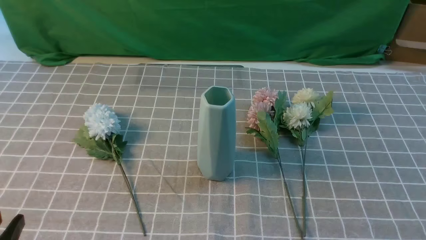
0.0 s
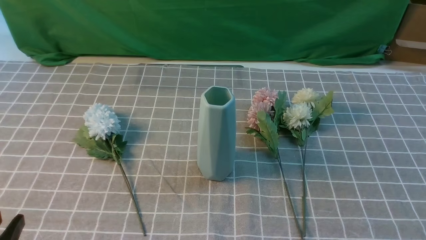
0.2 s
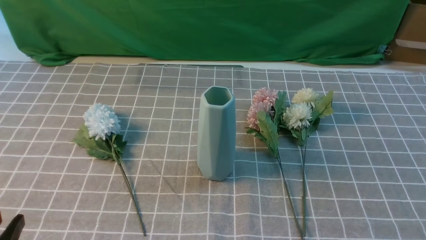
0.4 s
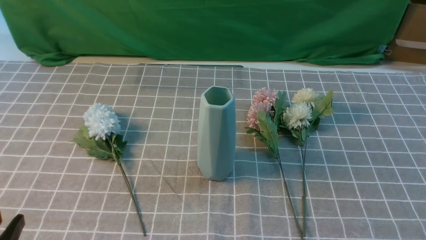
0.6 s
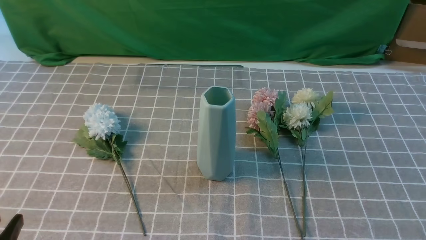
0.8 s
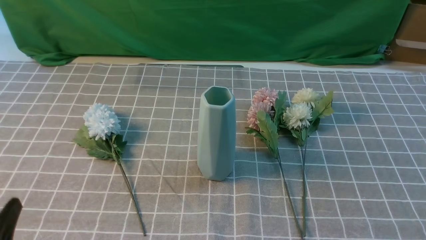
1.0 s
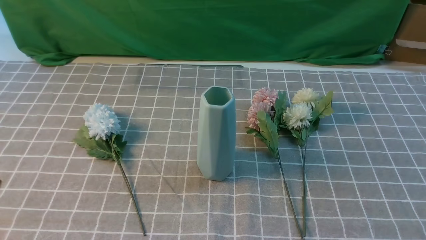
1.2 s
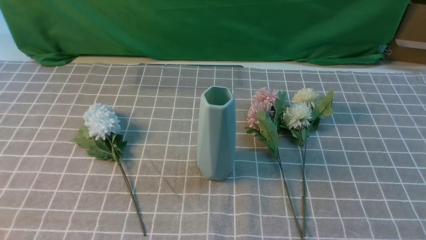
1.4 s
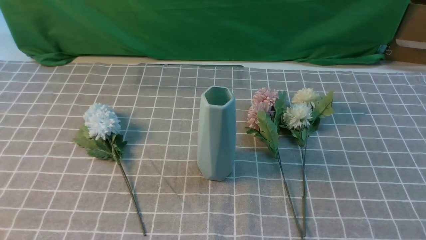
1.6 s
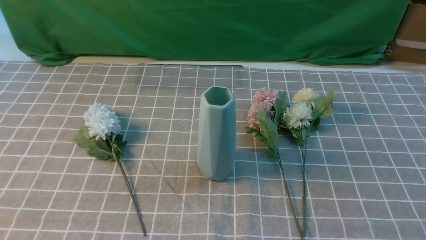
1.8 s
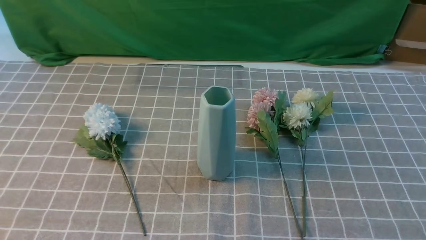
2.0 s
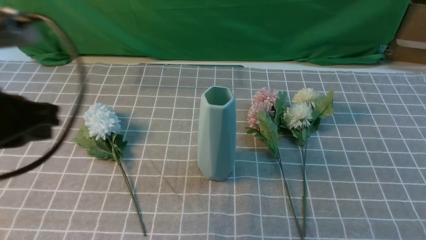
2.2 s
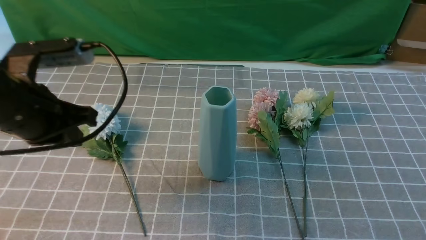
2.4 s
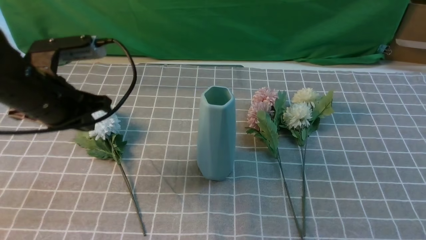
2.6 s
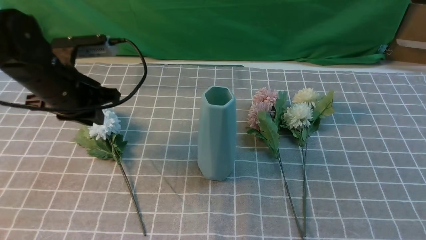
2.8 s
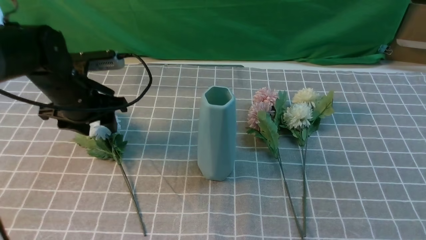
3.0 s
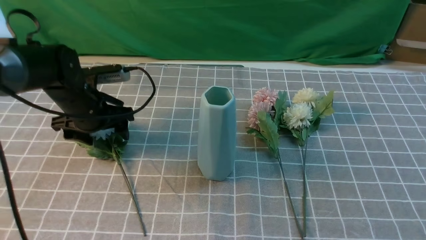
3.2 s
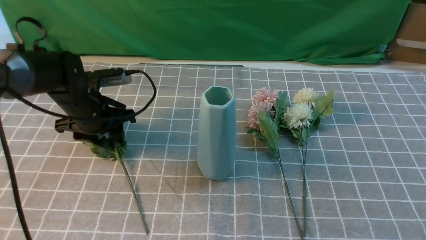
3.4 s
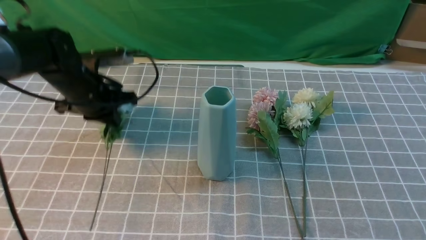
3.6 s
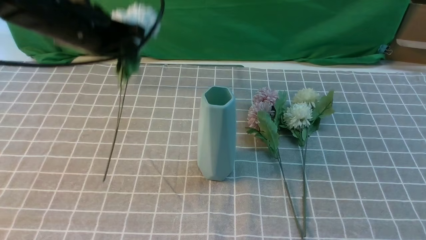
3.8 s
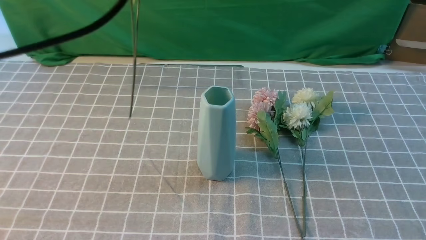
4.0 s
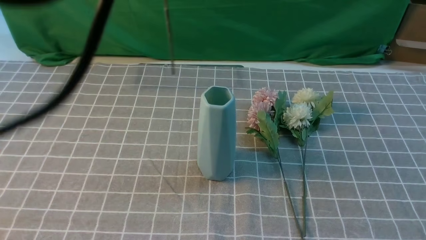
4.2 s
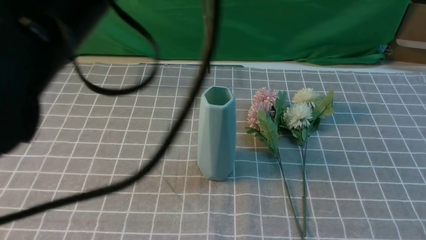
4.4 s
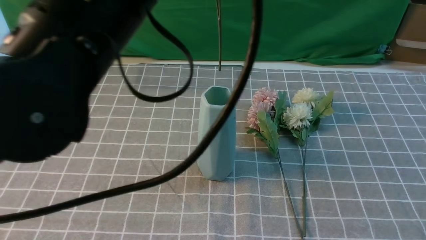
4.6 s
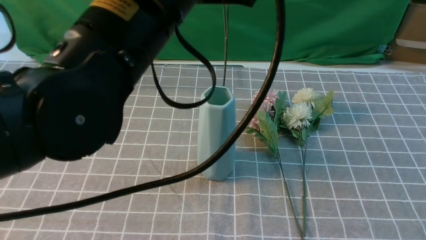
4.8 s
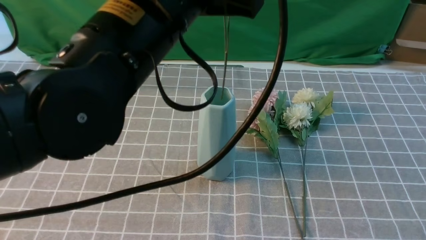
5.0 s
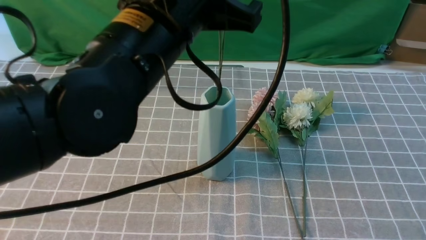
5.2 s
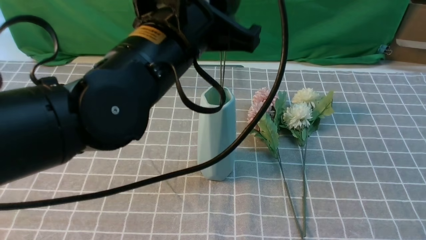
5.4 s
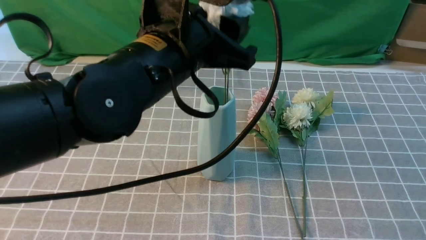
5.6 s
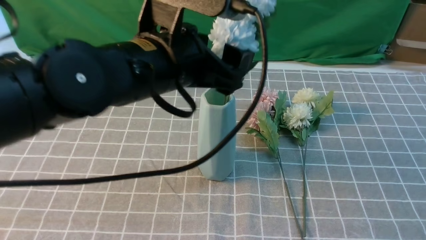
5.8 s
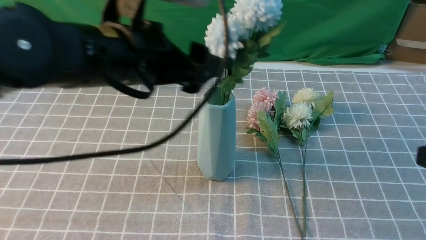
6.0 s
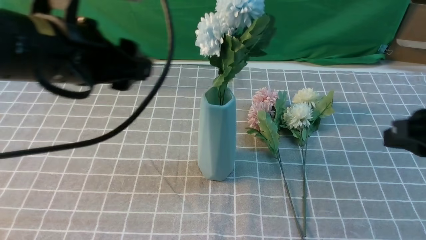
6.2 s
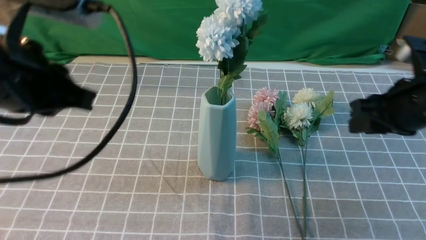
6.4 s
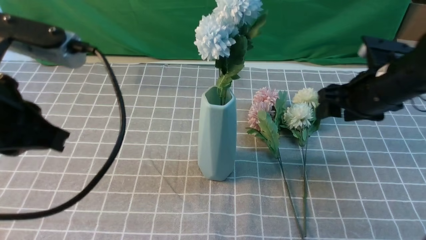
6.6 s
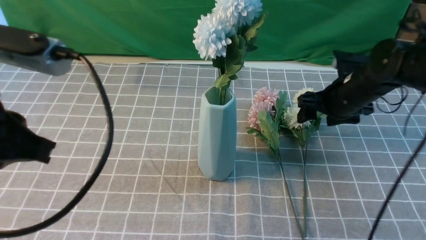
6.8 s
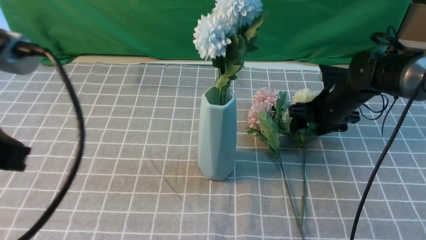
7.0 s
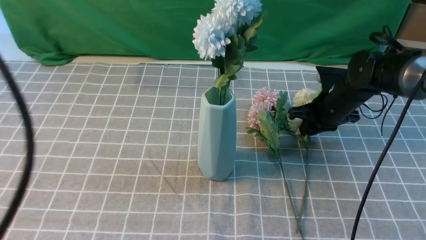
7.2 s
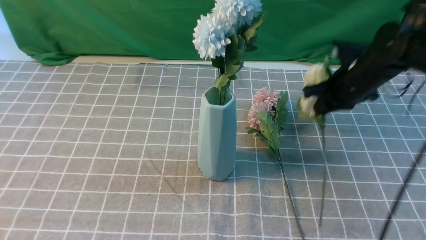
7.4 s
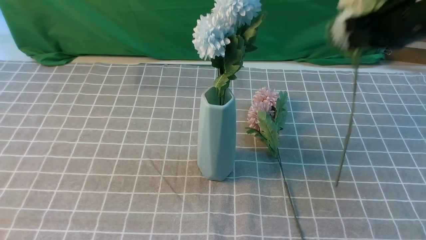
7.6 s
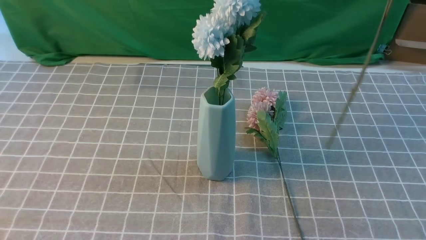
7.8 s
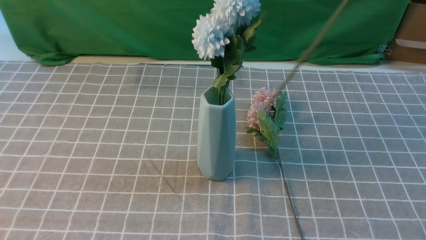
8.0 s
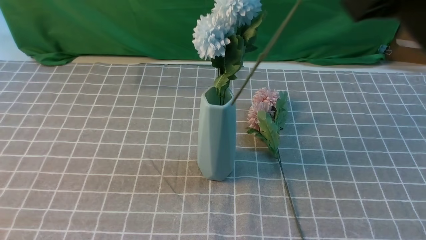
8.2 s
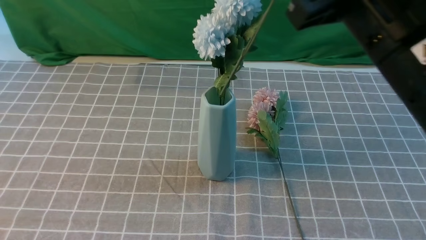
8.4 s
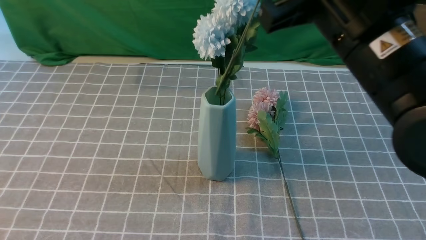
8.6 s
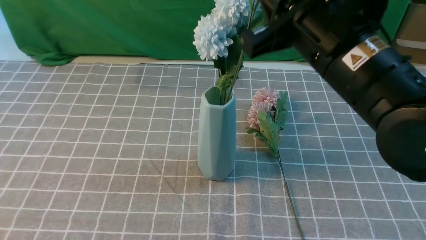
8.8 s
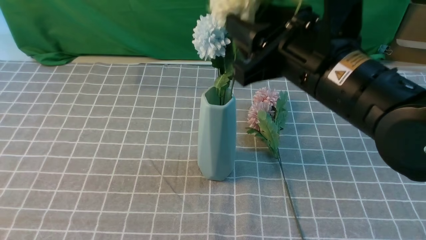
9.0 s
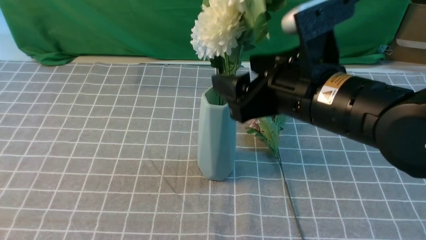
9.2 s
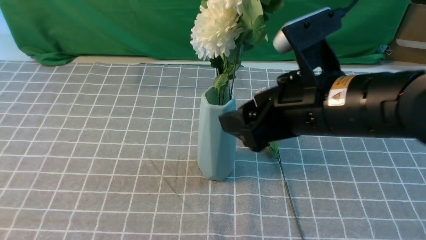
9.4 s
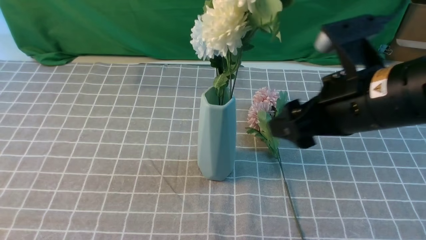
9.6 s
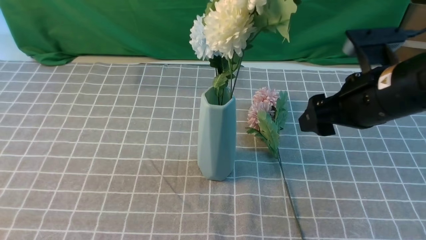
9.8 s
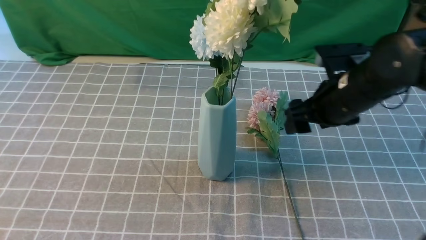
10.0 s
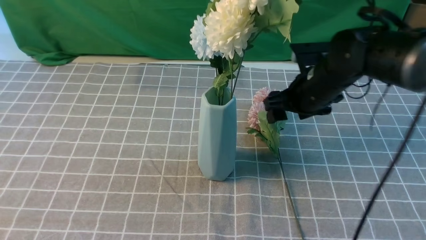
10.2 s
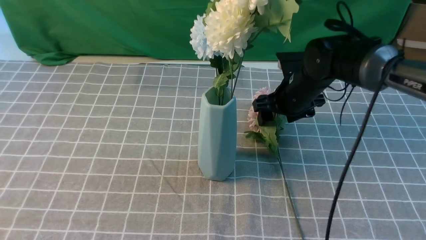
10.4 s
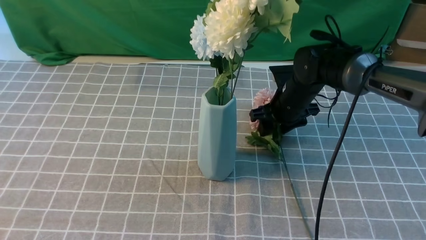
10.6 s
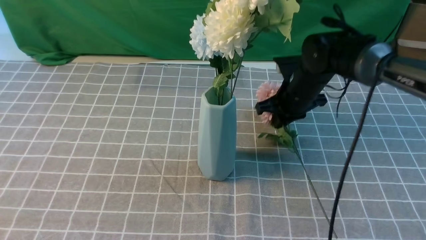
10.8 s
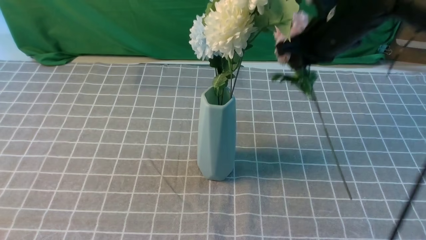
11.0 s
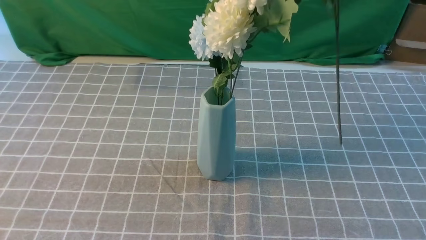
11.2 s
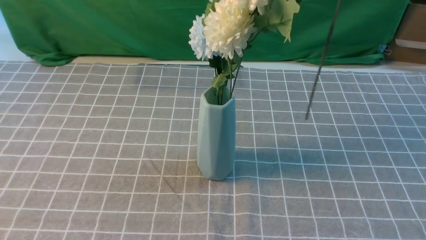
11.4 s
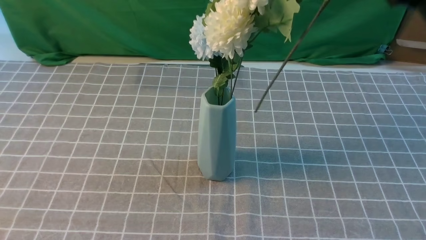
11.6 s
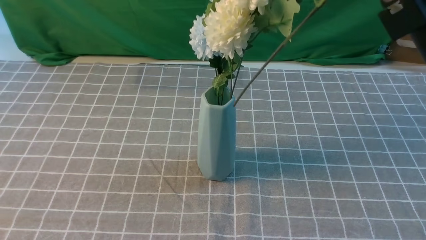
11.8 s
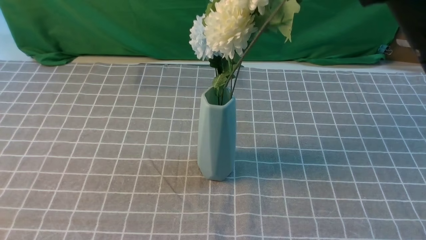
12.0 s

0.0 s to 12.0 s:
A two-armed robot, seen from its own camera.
Task of the whole recording: insert the flowers into the vase on the table with the grey tablecloth.
Step, 0.0 to 3.4 s: use the left arm to grab a bunch of fresh flowers.
Step, 3.6 to 6.0 s: use the left arm to insert the flowers into the vase.
Step, 6.2 to 7.2 s: use the right arm to grab a bunch of fresh flowers.
Step, 7.4 to 9.4 s: use the right arm to insert the flowers into the vase.
Step, 9.8 to 10.6 s: use the right arm to grab a bunch of fresh flowers.
1.6 to 3.0 s: The left gripper shifts some 35 cm forward, and opens up, while the right gripper travels upward by roughly 15 cm, and closes its fingers.
3.0 to 4.4 s: The left gripper goes roughly 30 cm upward, backward and to the right, and closes up.
4.4 to 6.0 s: The right gripper goes roughly 5 cm forward, while the left gripper goes approximately 10 cm downward, and opens up.
6.0 to 7.6 s: The left gripper is displaced backward and to the left by some 20 cm, and closes. The right gripper goes roughly 20 cm forward, and opens, then closes once more.
7.6 to 9.0 s: The right gripper travels to the left and backward by about 15 cm, and opens.
9.0 to 10.4 s: The right gripper heads forward and downward, covering some 25 cm.
10.4 to 12.0 s: The right gripper travels upward and backward by approximately 35 cm, and closes its fingers.

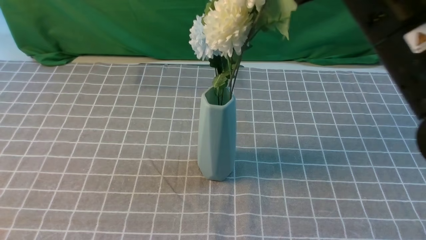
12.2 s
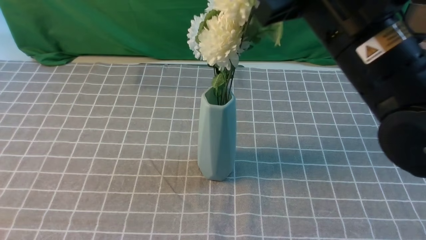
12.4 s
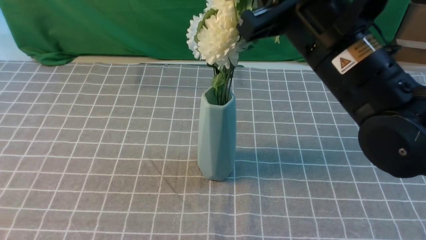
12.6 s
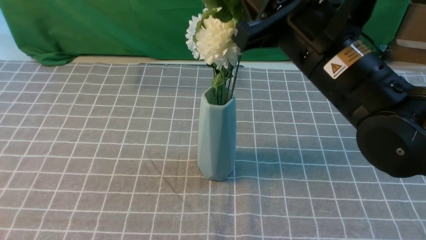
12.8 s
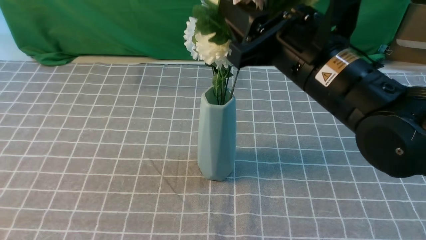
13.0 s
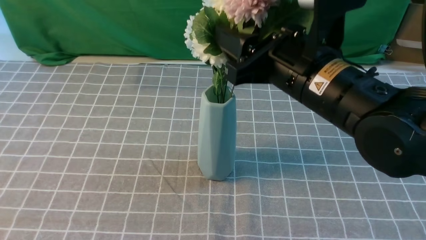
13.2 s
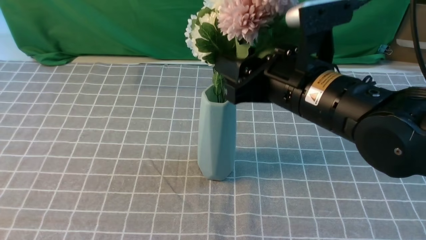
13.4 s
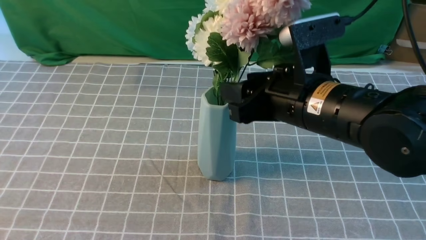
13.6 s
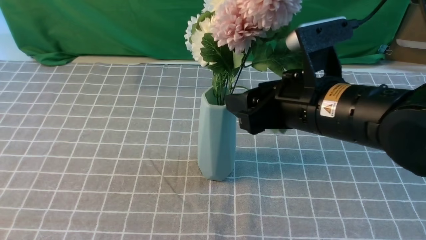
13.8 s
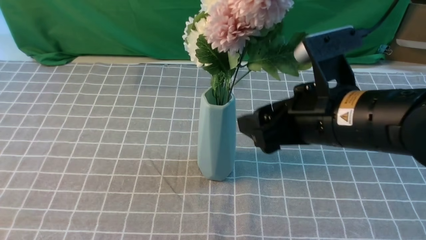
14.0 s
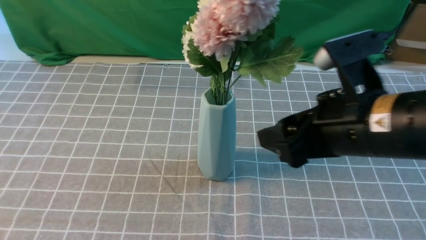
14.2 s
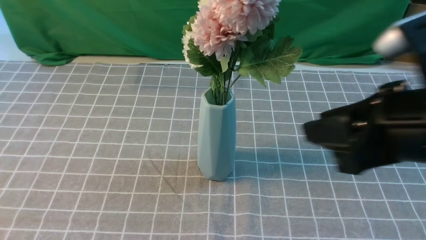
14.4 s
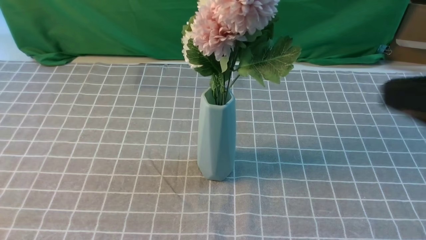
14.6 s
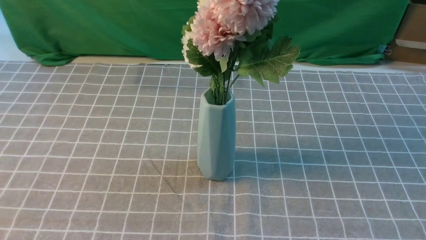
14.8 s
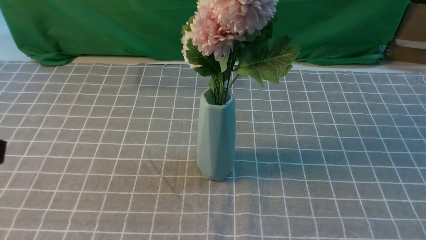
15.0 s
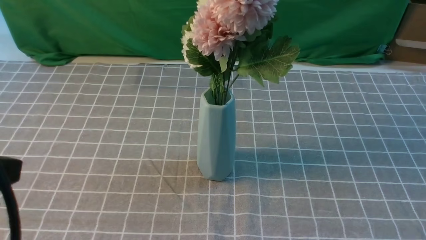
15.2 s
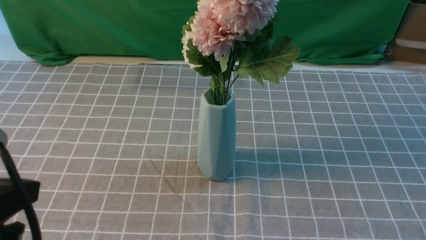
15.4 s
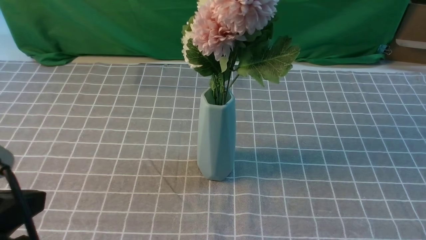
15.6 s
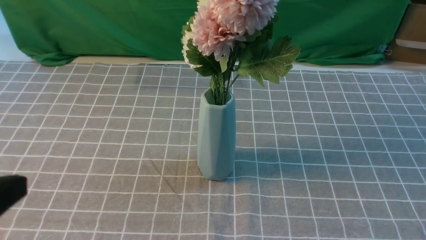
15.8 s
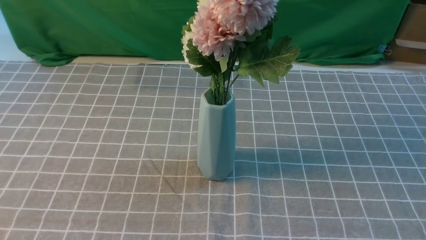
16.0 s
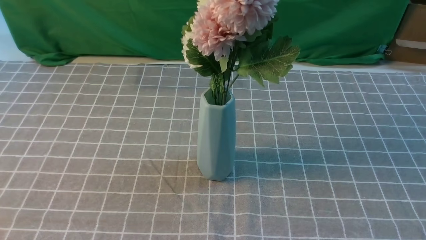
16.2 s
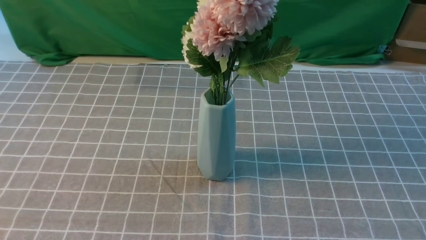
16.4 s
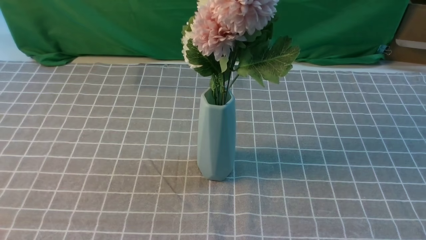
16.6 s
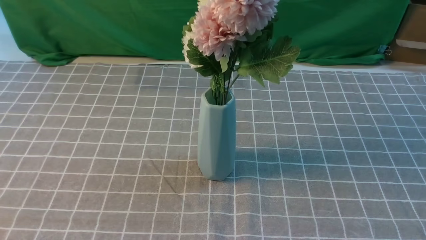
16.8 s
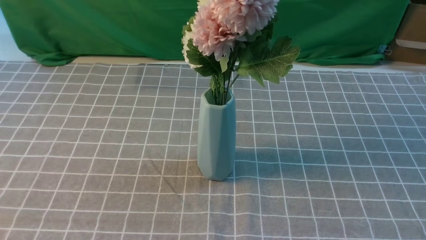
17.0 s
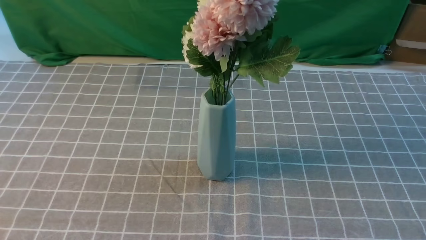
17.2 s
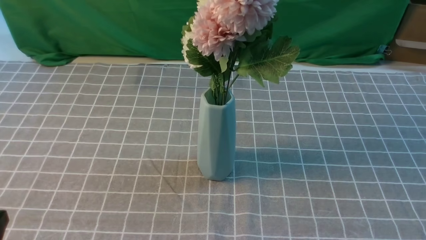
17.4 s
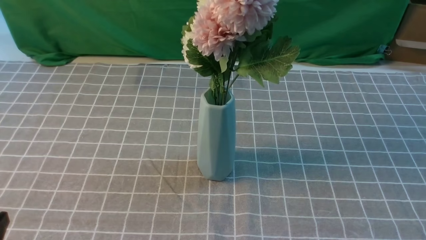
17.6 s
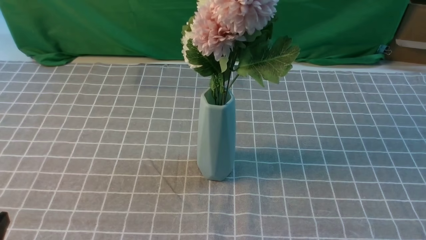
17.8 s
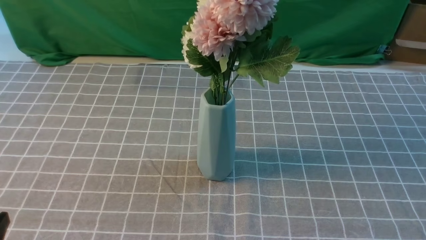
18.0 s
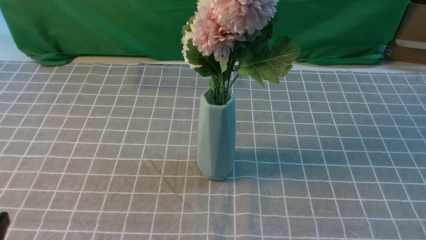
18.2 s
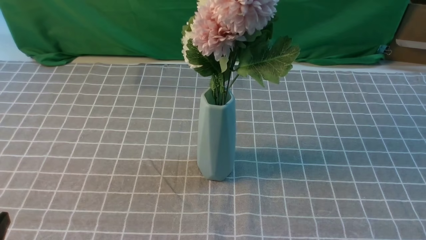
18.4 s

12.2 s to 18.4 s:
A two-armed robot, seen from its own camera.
Task of the whole recording: insert the flowers into the vase on the table with the grey tablecloth.
Step, 12.2 to 13.6 s: use the right arm to insert the flowers into the vase.
12.2 to 13.8 s: The right gripper shifts approximately 10 cm downward, and opens up.
13.8 to 15.4 s: The left gripper travels downward by about 5 cm, while the right gripper heads backward and to the right, covering some 35 cm, and closes.
15.4 to 16.8 s: The left gripper ends up approximately 5 cm from where it was.
